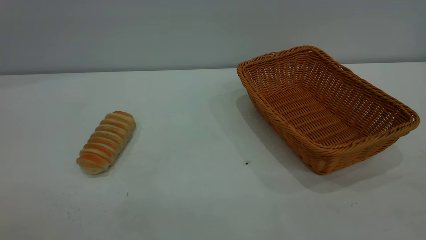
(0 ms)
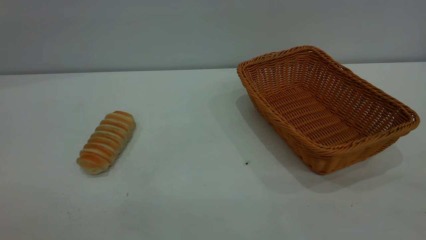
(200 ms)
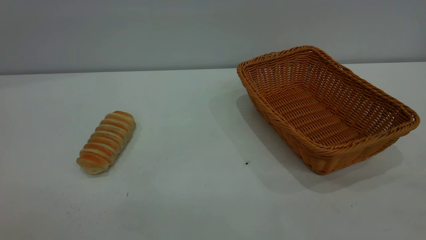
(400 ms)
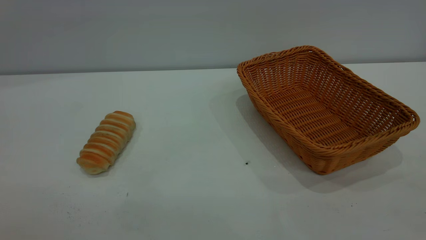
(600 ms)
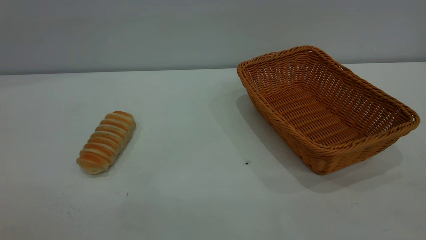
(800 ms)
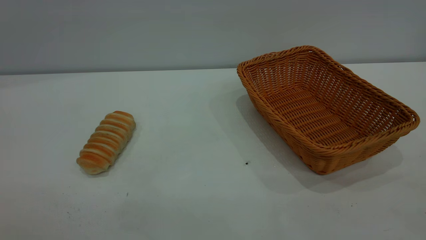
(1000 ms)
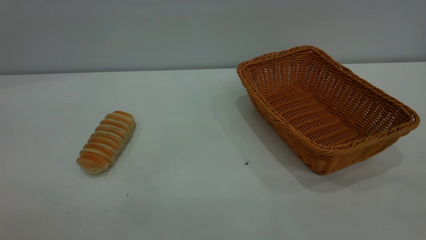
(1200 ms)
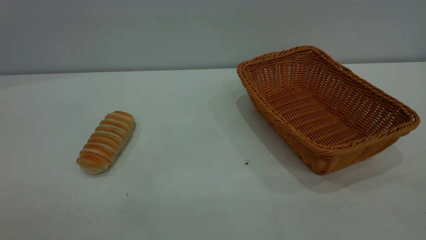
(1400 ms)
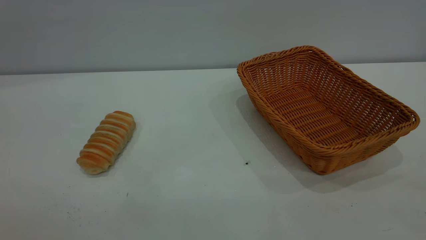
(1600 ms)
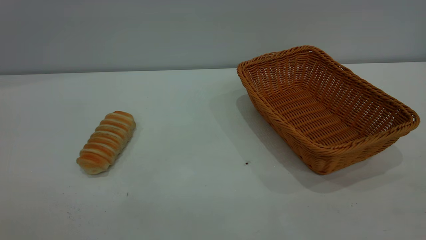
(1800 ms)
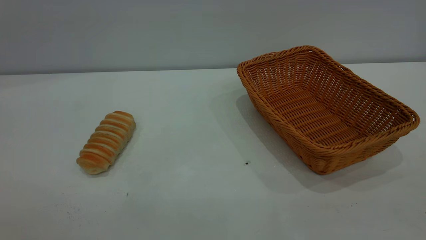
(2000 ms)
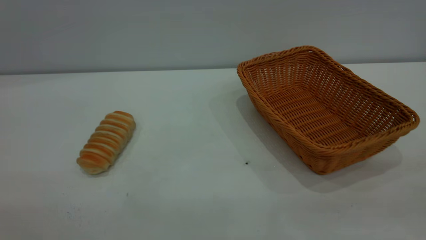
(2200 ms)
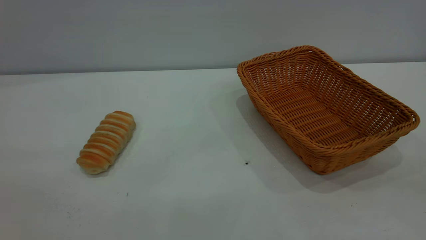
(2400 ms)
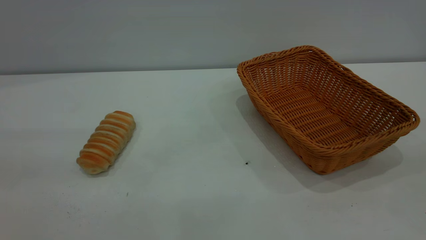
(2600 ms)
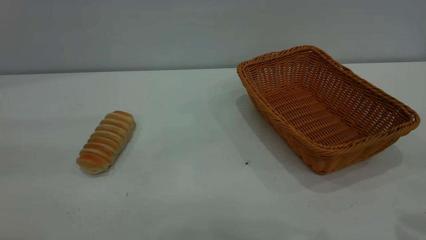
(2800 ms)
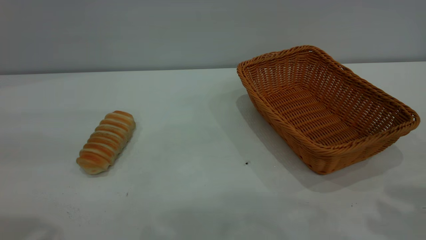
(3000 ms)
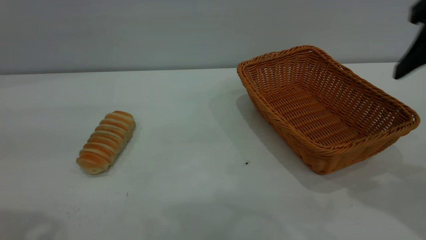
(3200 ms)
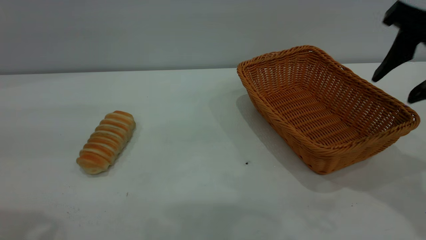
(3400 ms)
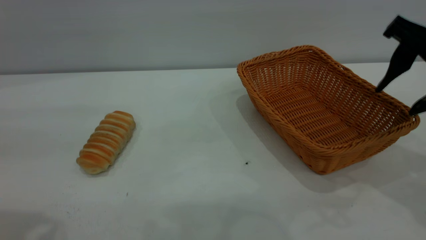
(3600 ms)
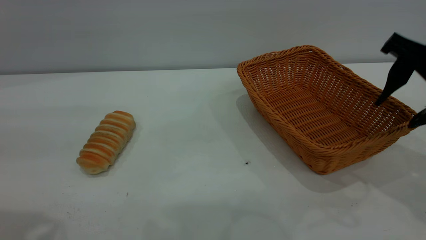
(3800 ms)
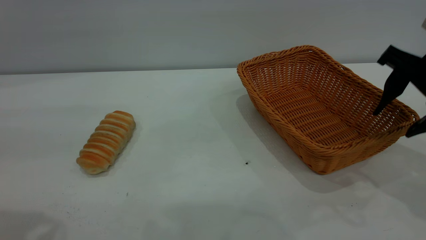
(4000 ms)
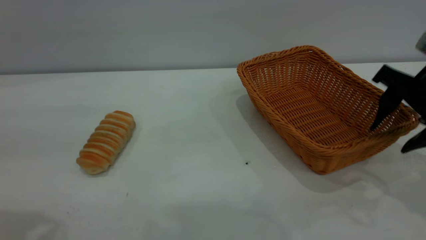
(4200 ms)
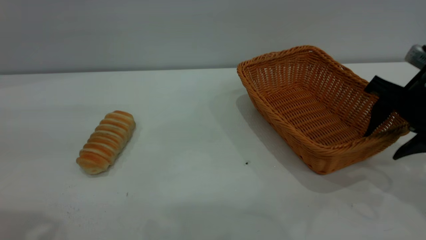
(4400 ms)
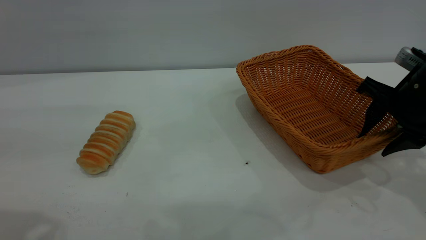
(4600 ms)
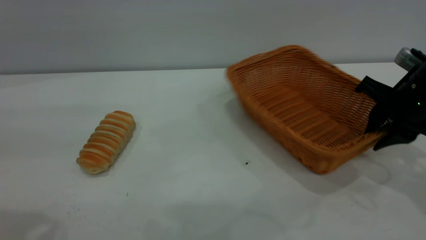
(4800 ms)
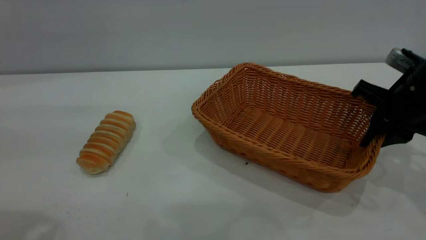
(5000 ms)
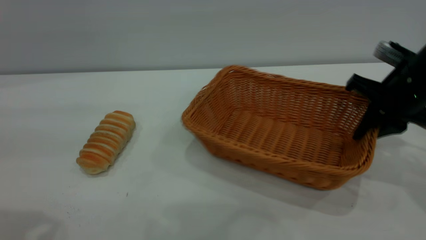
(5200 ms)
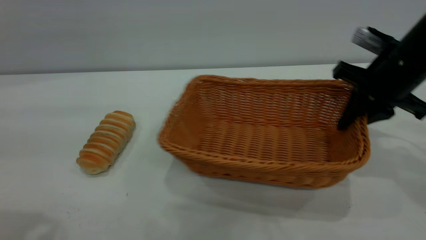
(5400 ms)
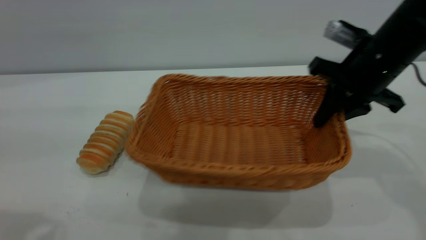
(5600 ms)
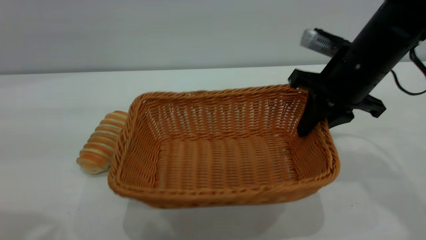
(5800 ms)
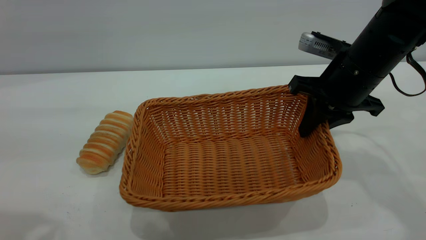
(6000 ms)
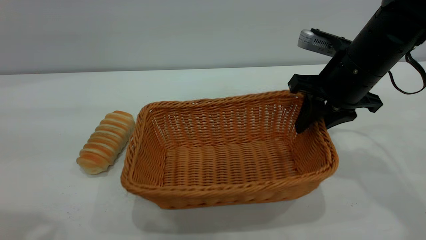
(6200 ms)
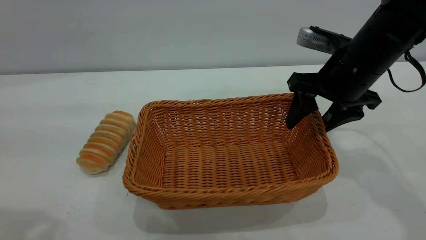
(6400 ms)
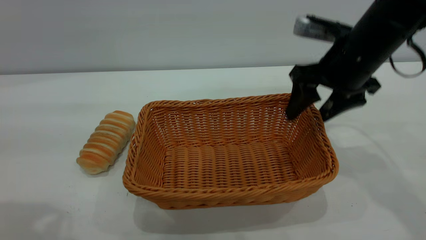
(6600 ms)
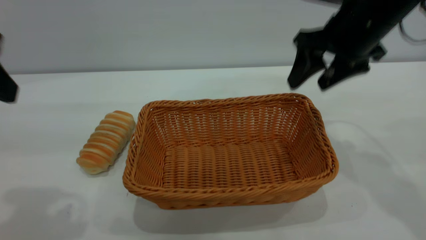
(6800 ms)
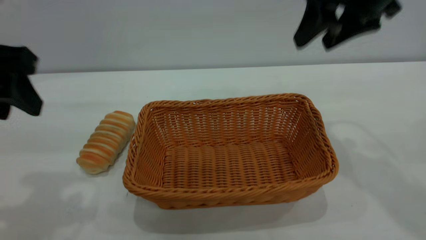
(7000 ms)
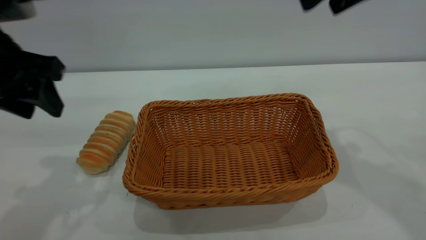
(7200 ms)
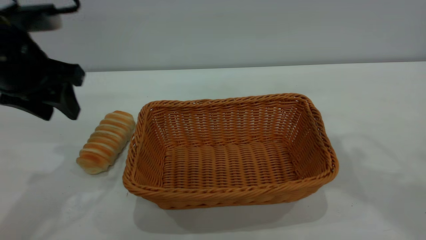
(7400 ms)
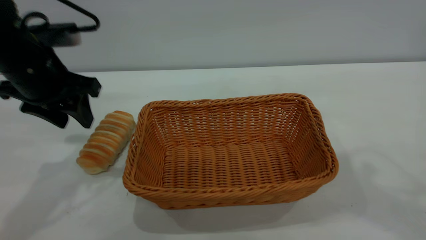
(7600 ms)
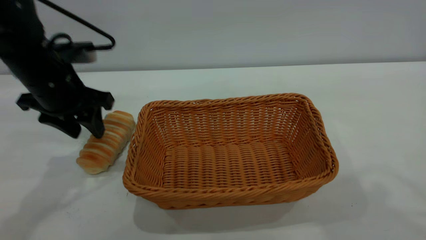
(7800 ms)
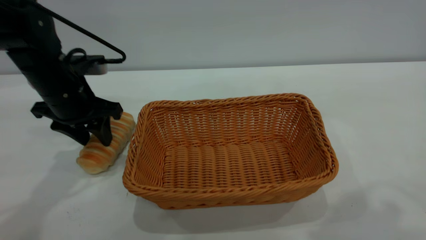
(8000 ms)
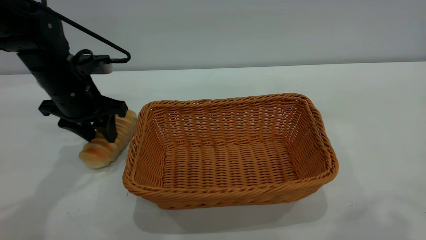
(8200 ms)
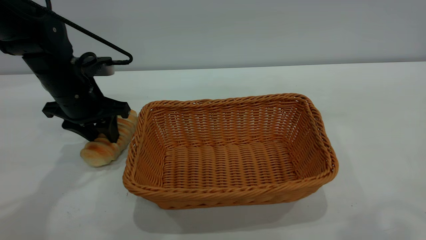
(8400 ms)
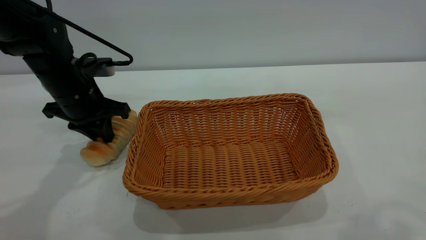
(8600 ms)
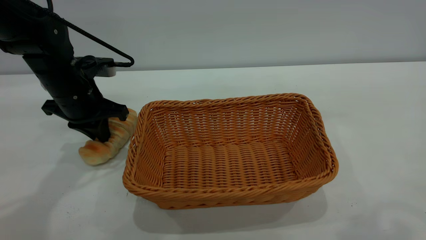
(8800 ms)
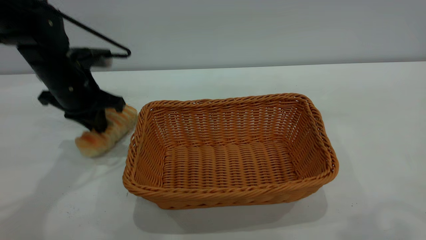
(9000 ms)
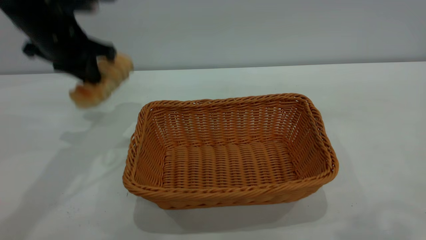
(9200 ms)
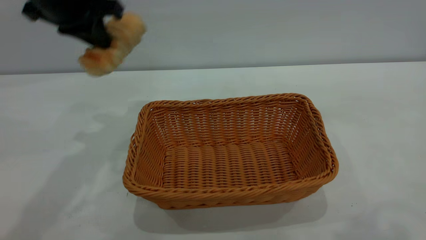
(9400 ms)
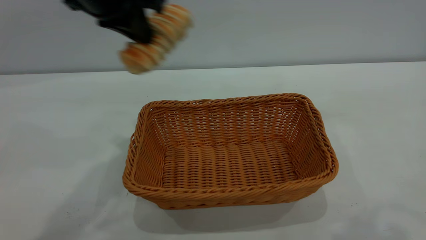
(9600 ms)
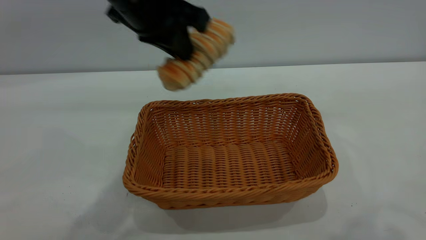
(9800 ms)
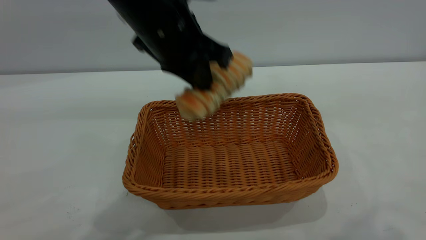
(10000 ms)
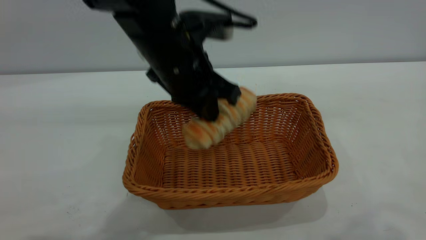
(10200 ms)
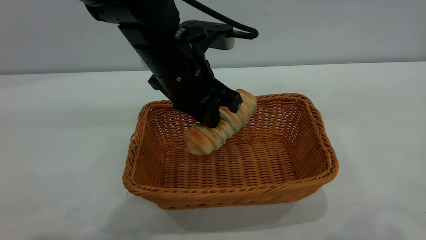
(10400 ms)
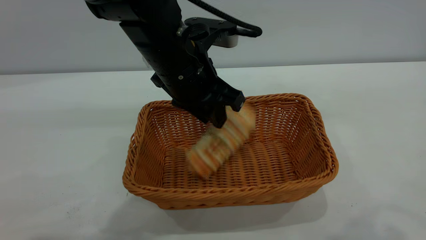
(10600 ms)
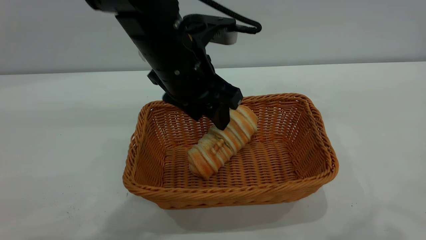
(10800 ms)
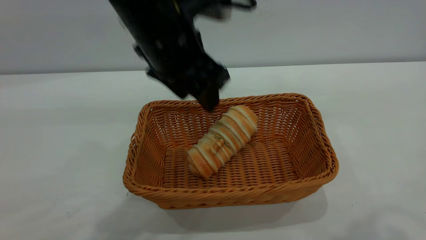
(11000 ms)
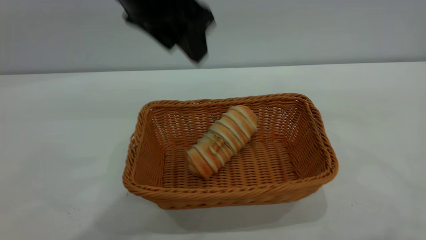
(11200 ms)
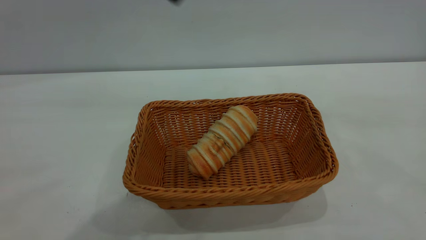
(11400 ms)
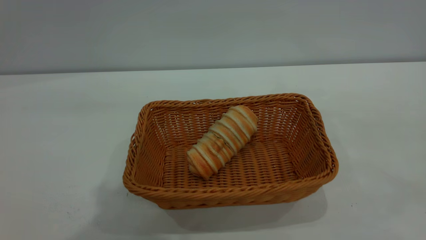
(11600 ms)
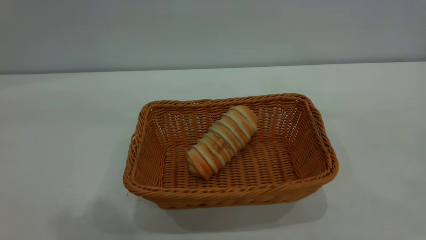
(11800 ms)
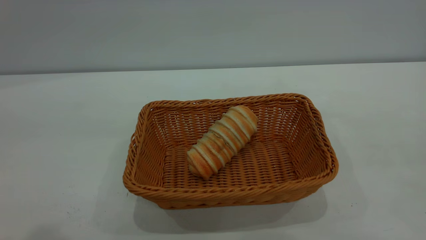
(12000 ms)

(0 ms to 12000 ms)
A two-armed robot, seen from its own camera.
Task of the whole recording: One hand grasps the yellow basket and places it in the middle of the table, while the other hand picks up the long bread and puts it into the yellow basket.
Step, 0 ms - 6600 ms: Move the basket to the center of view.
Step, 9200 ms - 11000 ms: place the bread into the basket.
0 ms - 1600 ms: Both grippers stay put.
3000 ms - 4400 ms: The right gripper moves downward and forward, roughly 15 cm.
4400 ms - 6000 ms: The right gripper travels to the left by approximately 10 cm, and closes.
6000 ms - 7600 ms: The right gripper travels upward by some 25 cm, and opens, while the left gripper shifts approximately 25 cm forward and downward.
7600 ms - 9000 ms: The left gripper heads forward, covering approximately 5 cm, and closes.
9000 ms - 10400 ms: The left gripper shifts roughly 20 cm to the right.
10400 ms - 12000 ms: The right gripper goes about 15 cm backward and to the right; the left gripper goes roughly 35 cm upward, backward and to the left, and opens up.

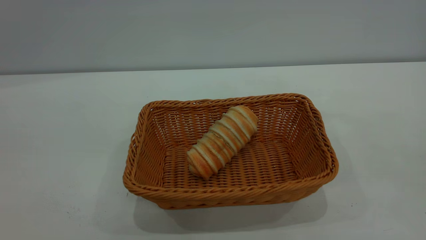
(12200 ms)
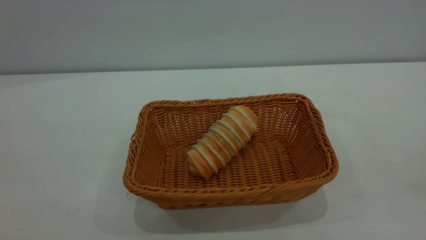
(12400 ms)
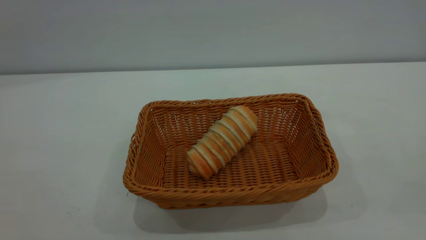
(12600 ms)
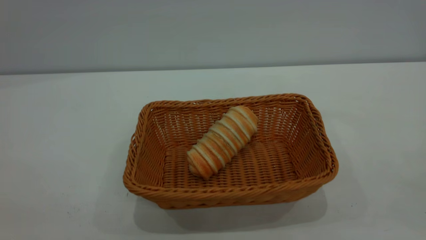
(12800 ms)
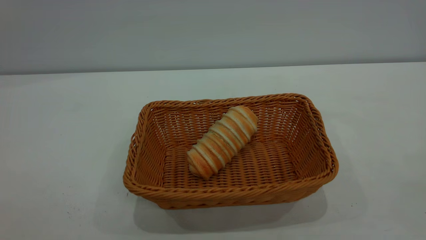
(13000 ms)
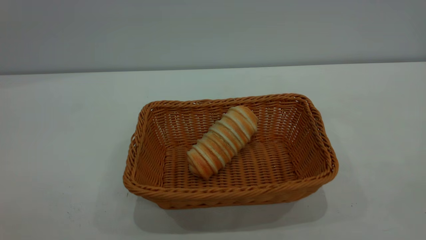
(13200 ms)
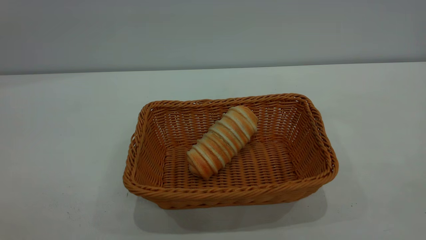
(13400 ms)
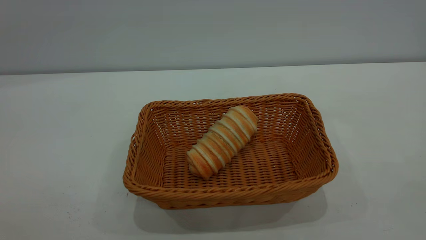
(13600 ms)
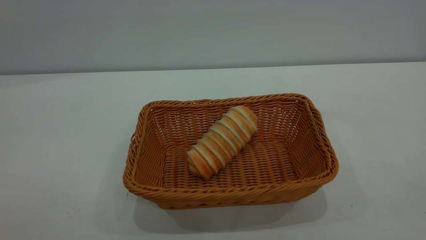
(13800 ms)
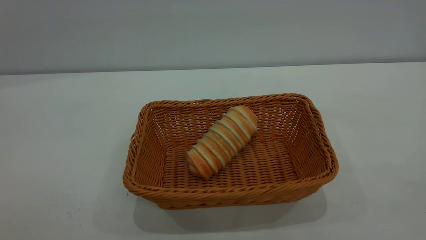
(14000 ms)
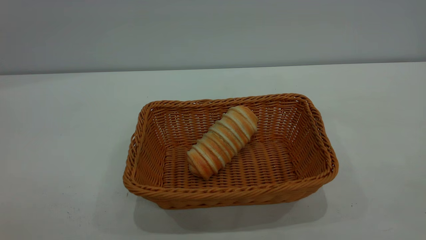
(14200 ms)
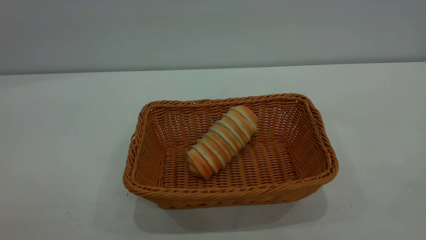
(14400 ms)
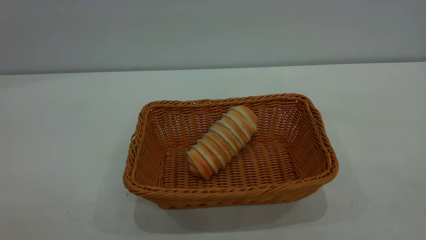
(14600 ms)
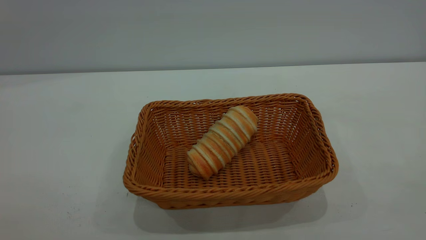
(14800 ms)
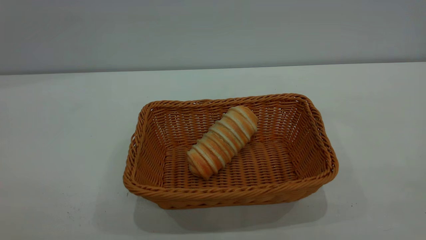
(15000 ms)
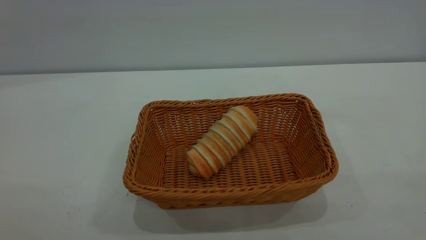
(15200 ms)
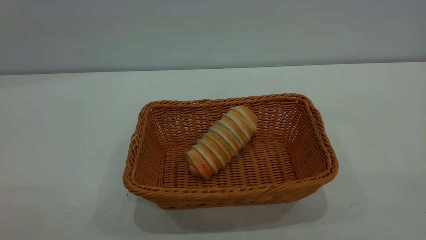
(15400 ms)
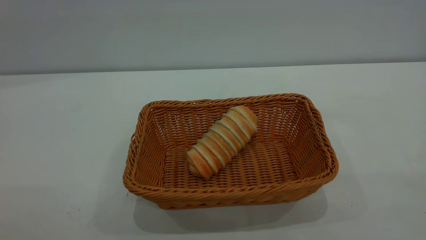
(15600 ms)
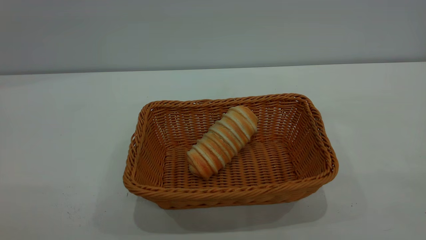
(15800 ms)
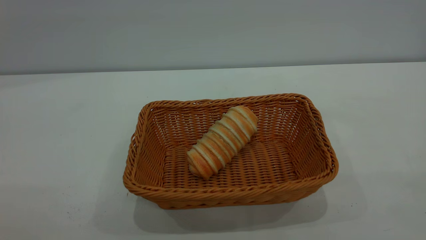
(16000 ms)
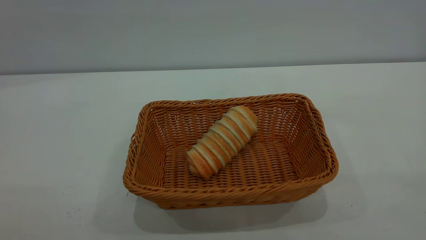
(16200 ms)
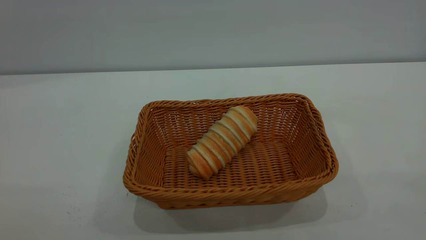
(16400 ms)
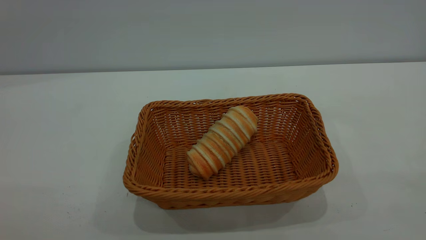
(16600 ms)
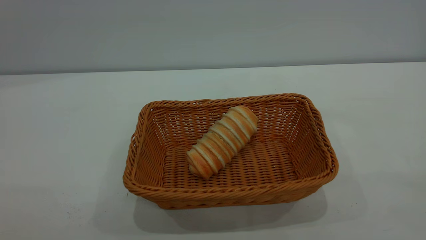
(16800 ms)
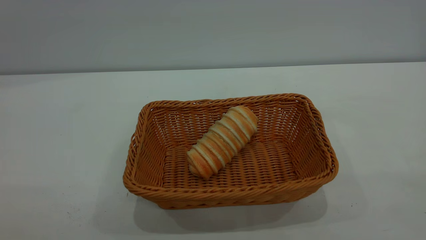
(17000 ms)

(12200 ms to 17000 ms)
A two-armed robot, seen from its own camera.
Task of the whole recording: One hand grasps the yellow basket and places it in the middle of the table, while the other hand picks up the long bread and puts it into the yellow basket.
15400 ms - 17000 ms: The two grippers keep their place.
